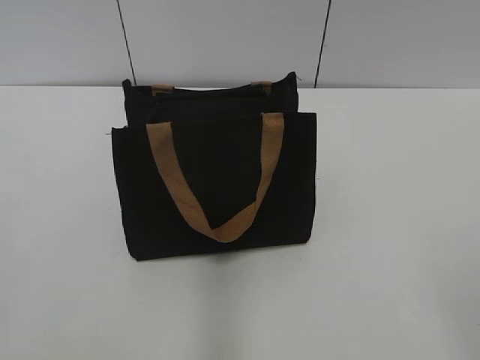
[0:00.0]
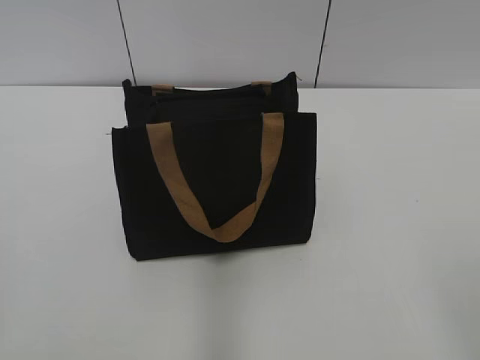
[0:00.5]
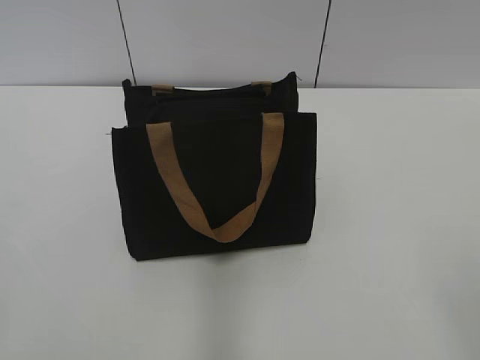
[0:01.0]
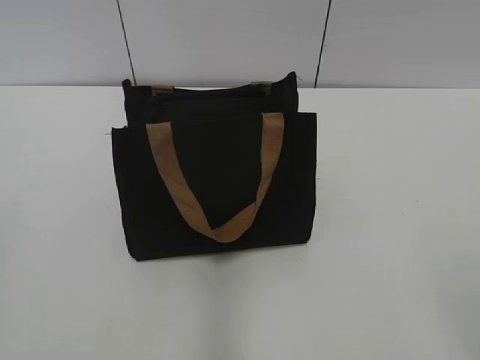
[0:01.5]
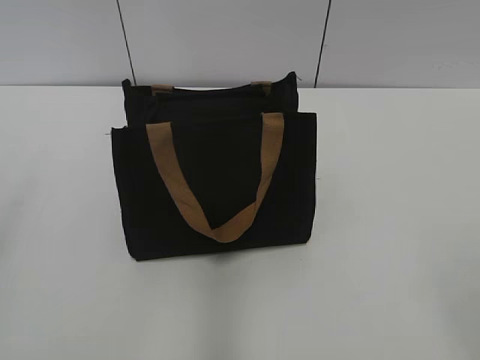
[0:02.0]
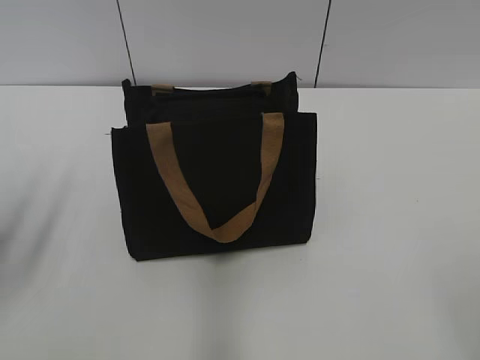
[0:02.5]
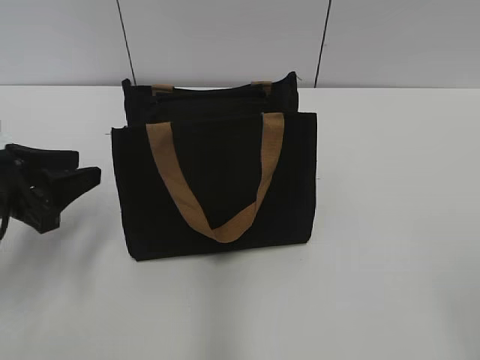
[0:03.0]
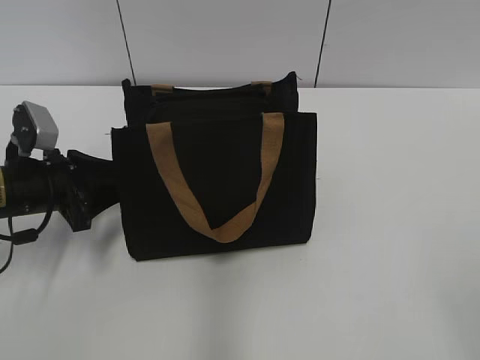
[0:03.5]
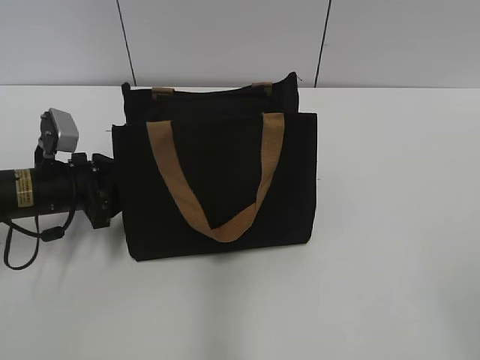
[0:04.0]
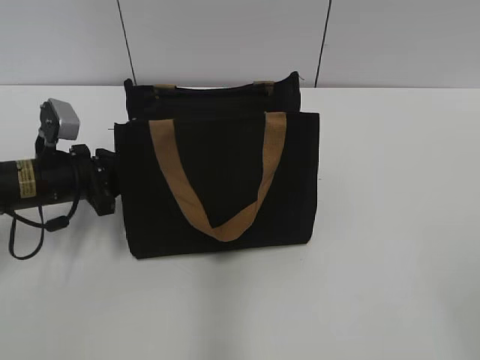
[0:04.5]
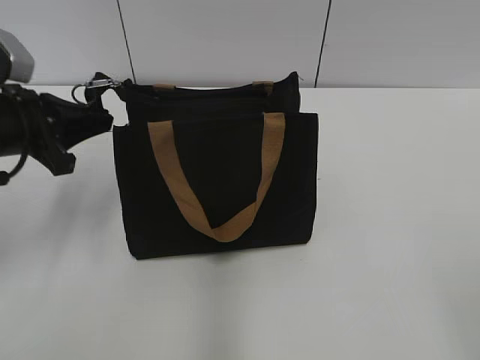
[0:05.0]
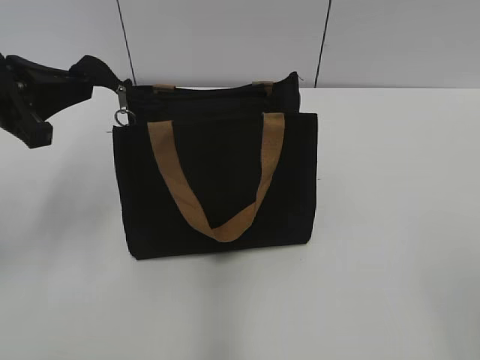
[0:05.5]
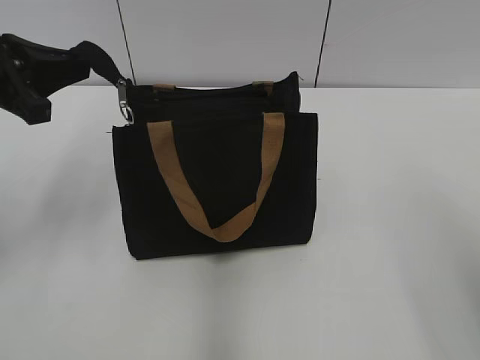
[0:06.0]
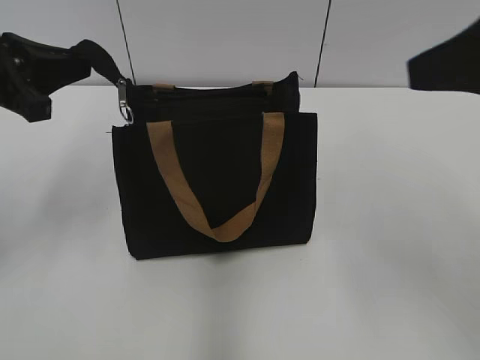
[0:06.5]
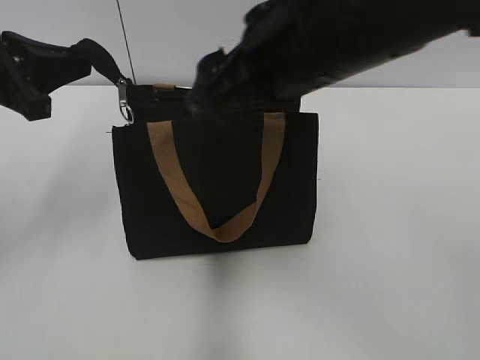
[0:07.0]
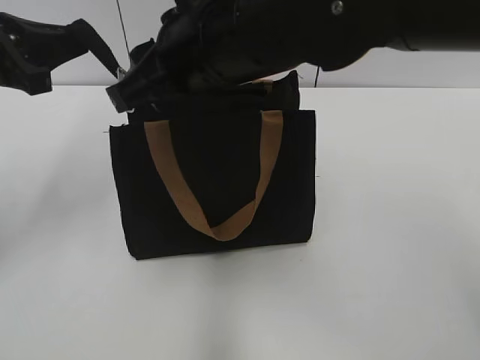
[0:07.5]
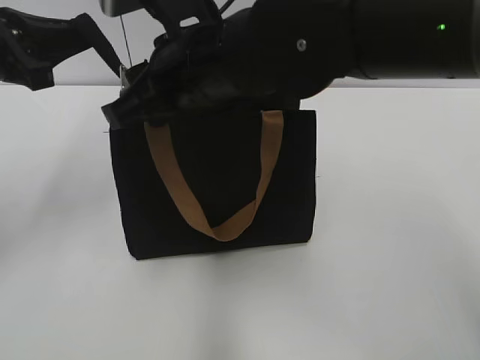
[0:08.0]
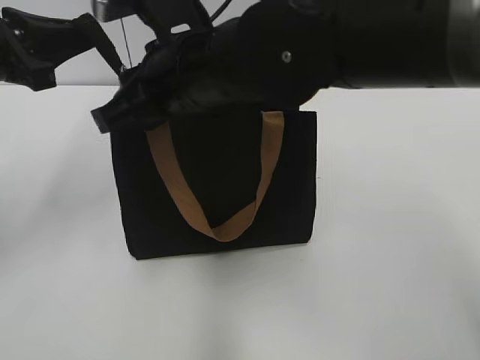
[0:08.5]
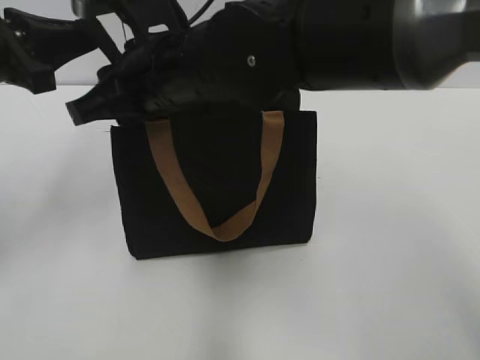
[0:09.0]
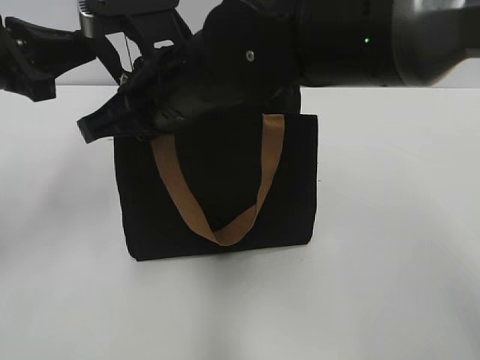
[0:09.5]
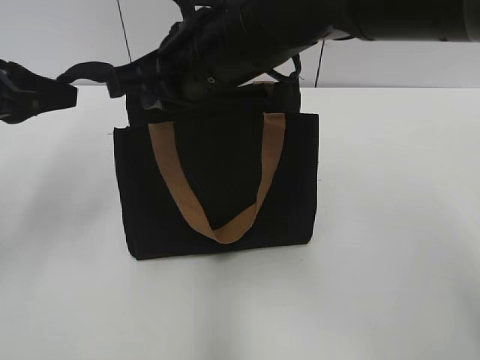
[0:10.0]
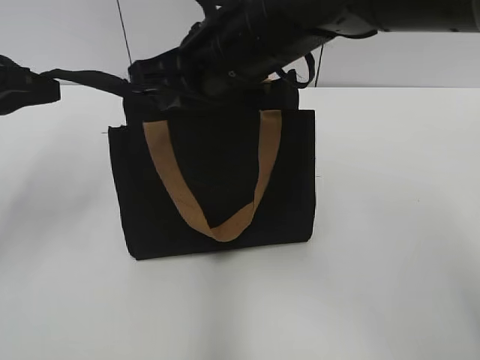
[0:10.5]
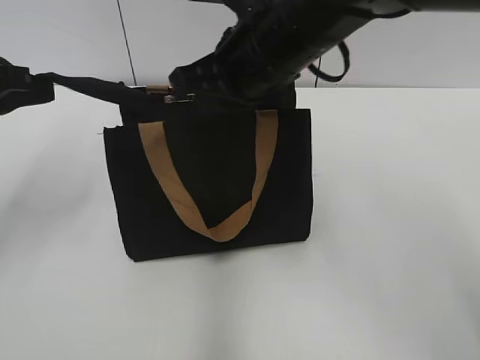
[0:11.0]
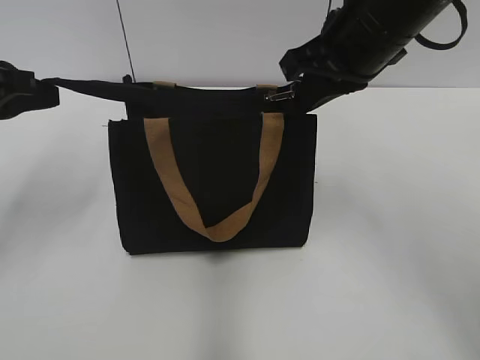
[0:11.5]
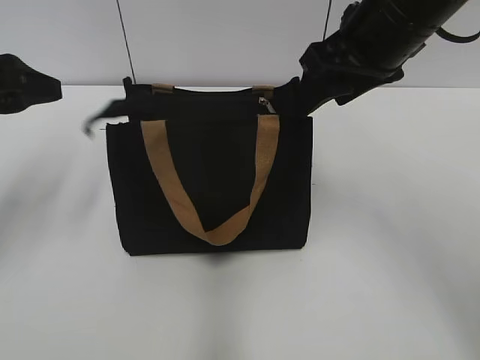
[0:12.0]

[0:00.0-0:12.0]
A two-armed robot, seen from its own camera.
Step, 0:00.0 to 0:11.5: Zip up the bag with your right hand.
0:02.0 to 0:04.0: The left gripper is displaced forward and downward by about 30 cm.
0:04.0 to 0:06.0: The left gripper goes approximately 15 cm upward, and closes up.
0:06.0 to 0:08.0: The right gripper heads to the left and forward, covering some 35 cm, and closes up.
0:08.0 to 0:10.0: The right gripper closes up.
0:10.0 to 0:12.0: The right gripper travels to the right by roughly 15 cm, and opens up. The left gripper opens.

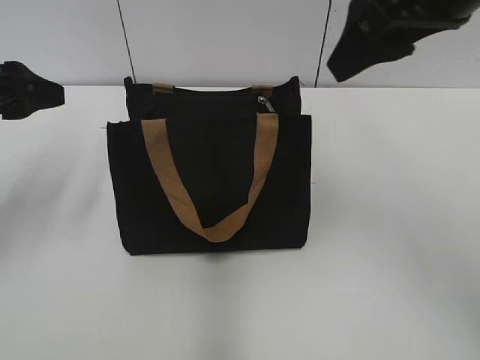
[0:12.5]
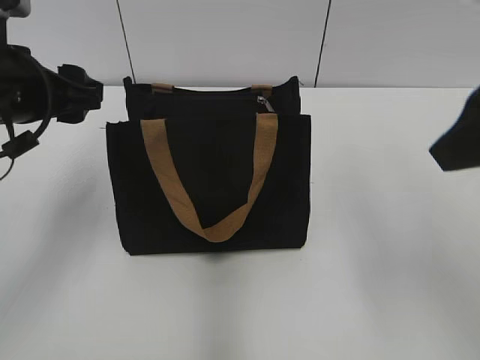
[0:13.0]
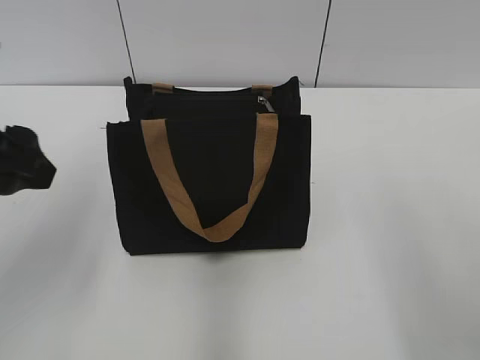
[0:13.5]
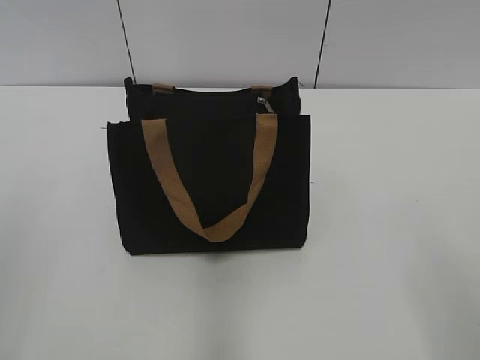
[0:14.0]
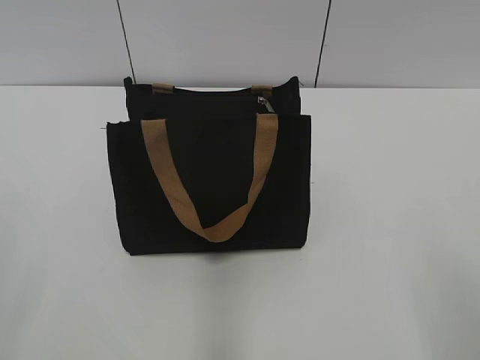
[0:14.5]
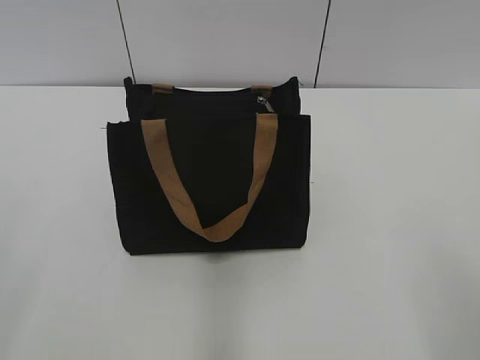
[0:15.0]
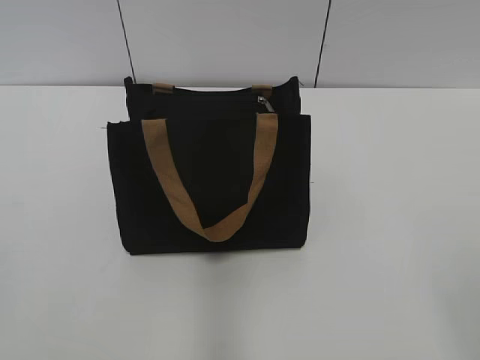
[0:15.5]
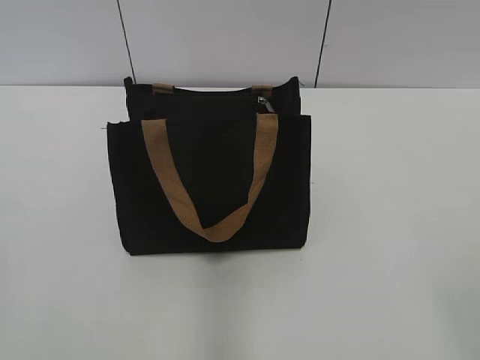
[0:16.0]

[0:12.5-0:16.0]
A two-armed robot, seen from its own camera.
0:12.5 to 0:14.5: The left gripper is displaced backward by roughly 25 cm. Meanwhile the right gripper heads backward and to the right, covering about 30 cm.

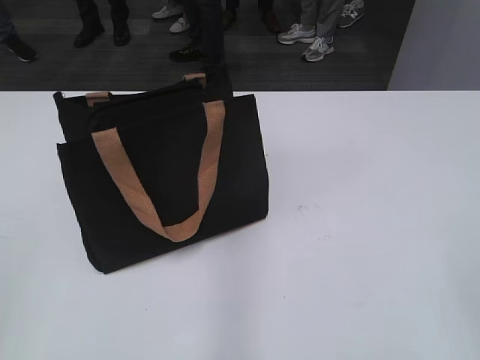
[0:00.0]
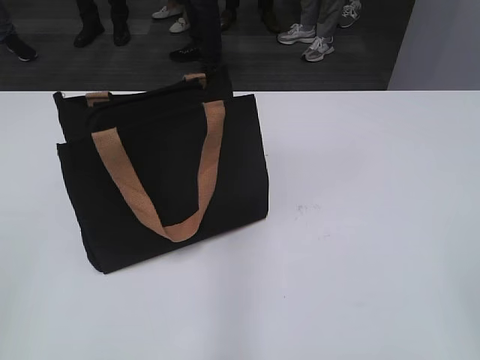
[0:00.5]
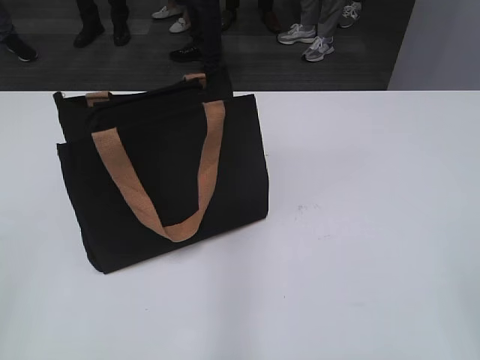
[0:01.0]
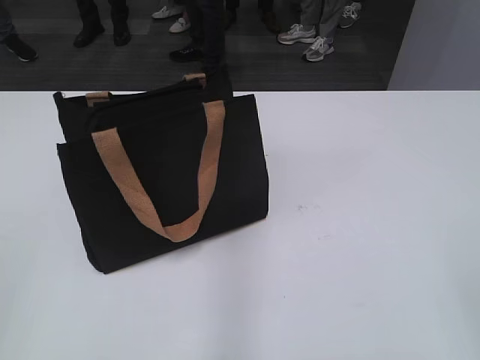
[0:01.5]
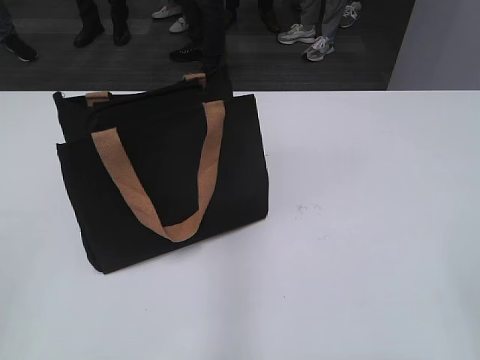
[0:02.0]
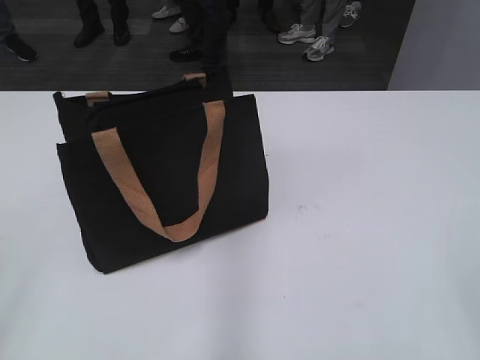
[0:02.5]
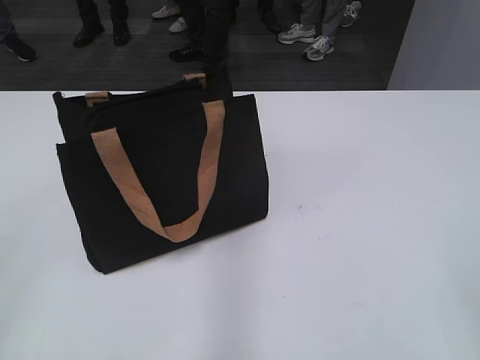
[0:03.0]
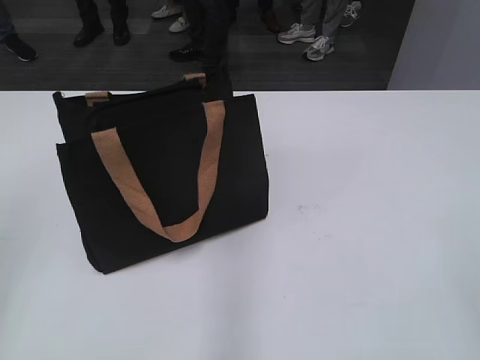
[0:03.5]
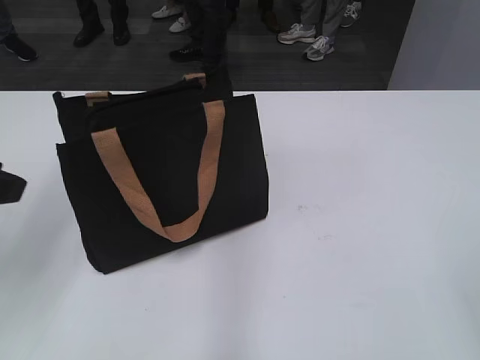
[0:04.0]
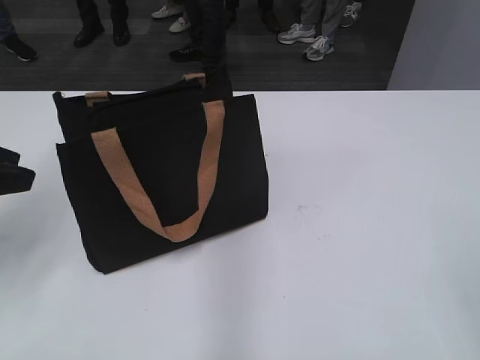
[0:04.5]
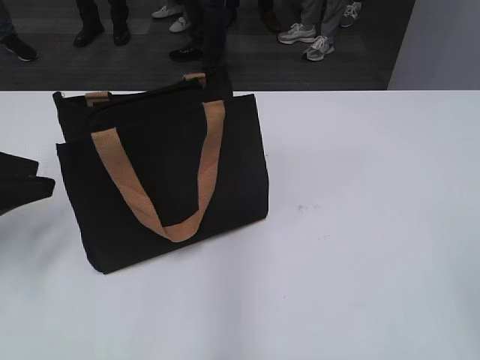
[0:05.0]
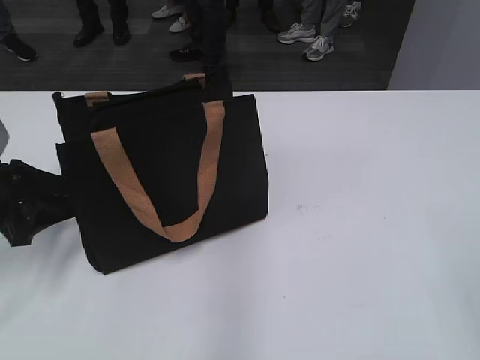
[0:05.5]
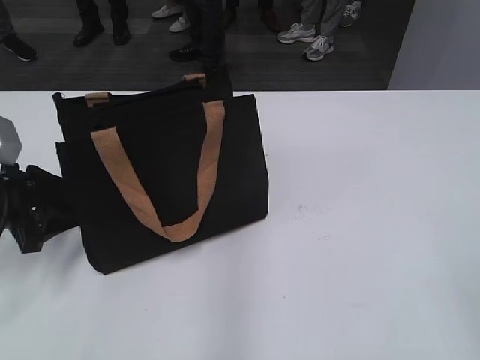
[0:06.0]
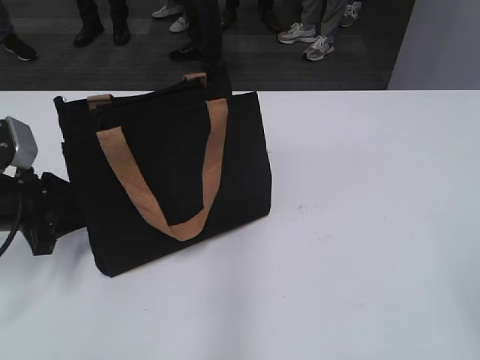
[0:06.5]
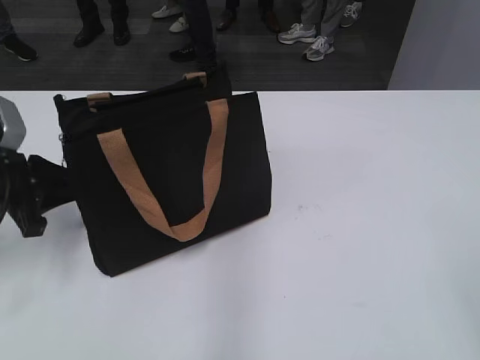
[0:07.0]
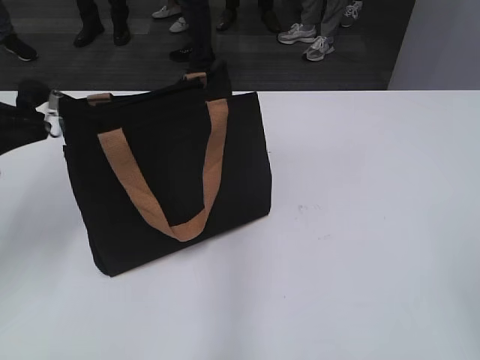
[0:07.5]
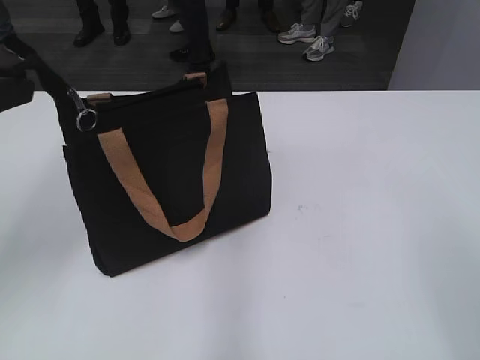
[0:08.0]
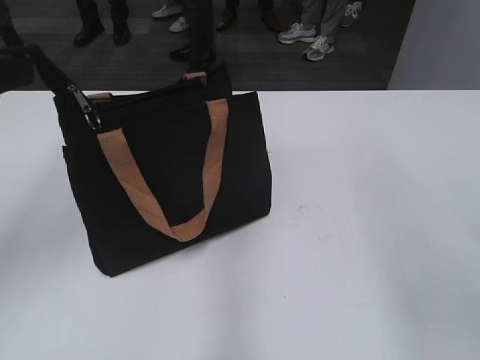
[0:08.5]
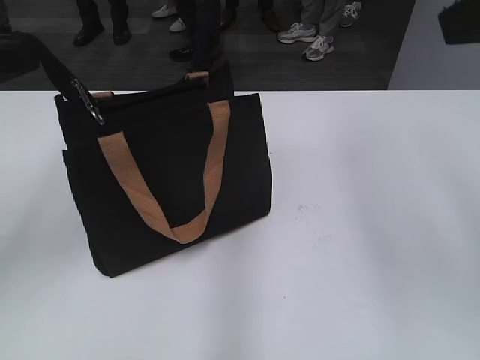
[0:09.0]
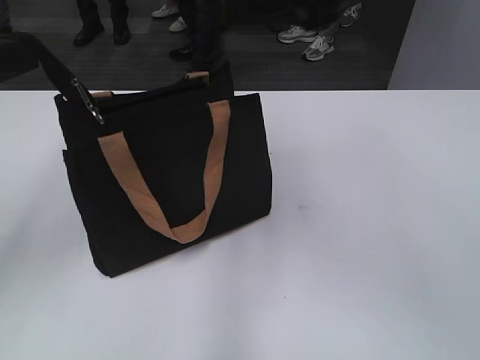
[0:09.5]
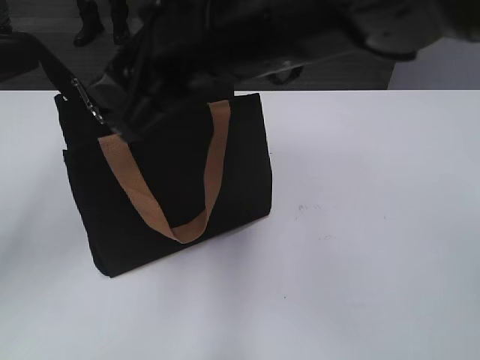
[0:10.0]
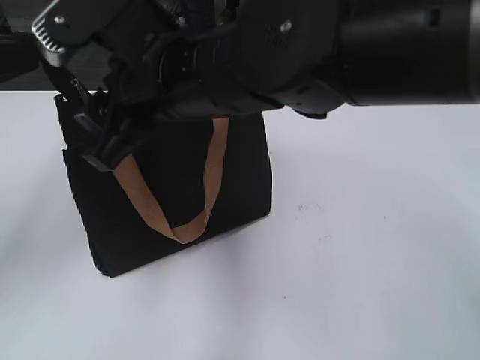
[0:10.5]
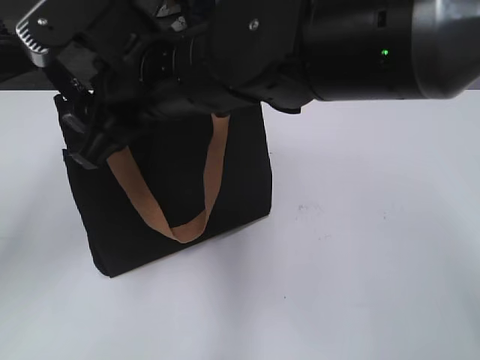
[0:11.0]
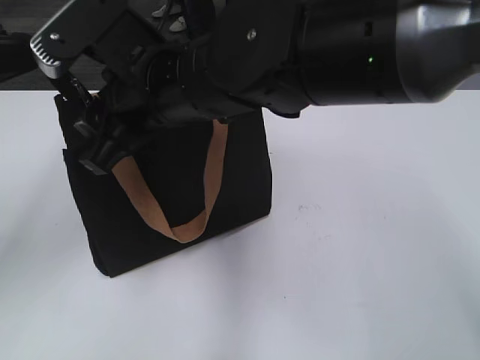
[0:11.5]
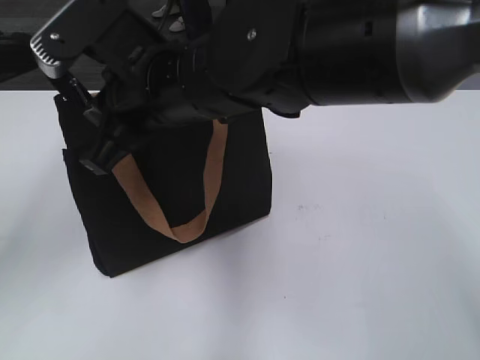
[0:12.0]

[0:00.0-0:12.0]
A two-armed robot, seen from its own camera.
0:02.0 to 0:04.0: The left gripper moves forward, about 20 cm.
0:04.0 to 0:06.0: The left gripper heads downward and forward, covering some 15 cm.
0:06.0 to 0:08.0: The left gripper goes approximately 15 cm upward, and closes up.
0:08.0 to 0:10.0: The right gripper travels to the left and forward by roughly 35 cm.
0:10.0 to 0:12.0: The right gripper shifts roughly 5 cm downward, and closes its fingers.
